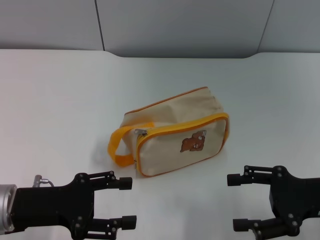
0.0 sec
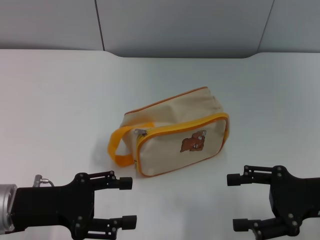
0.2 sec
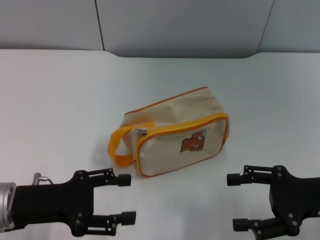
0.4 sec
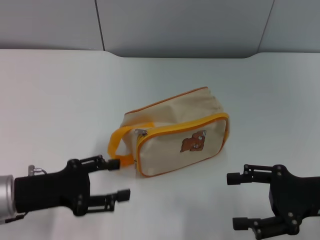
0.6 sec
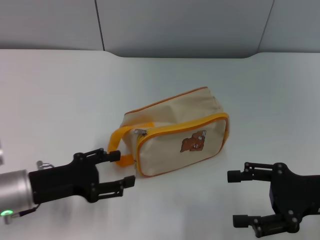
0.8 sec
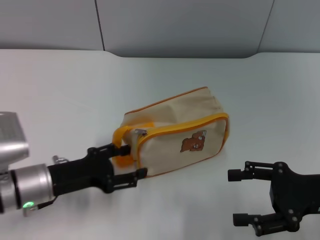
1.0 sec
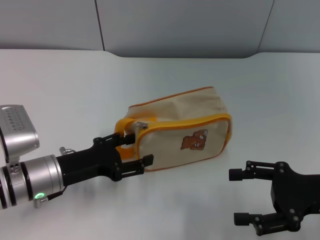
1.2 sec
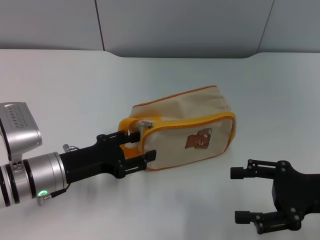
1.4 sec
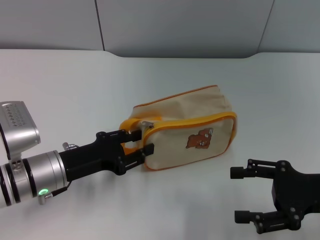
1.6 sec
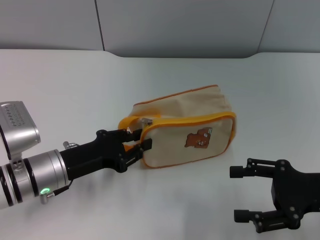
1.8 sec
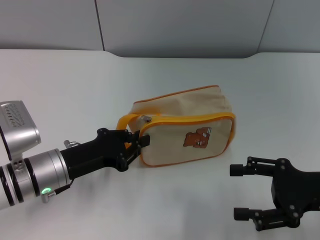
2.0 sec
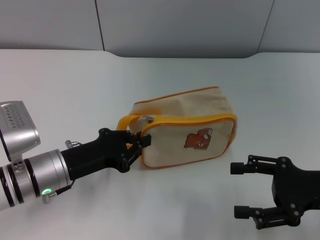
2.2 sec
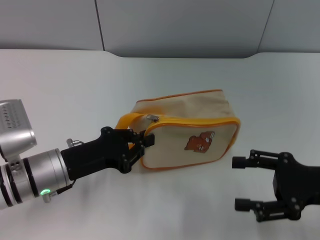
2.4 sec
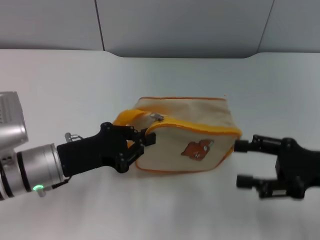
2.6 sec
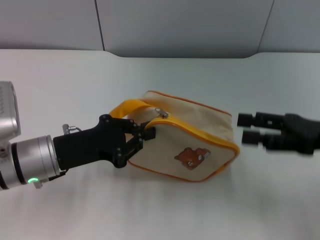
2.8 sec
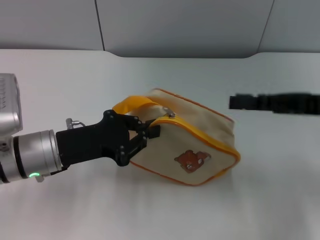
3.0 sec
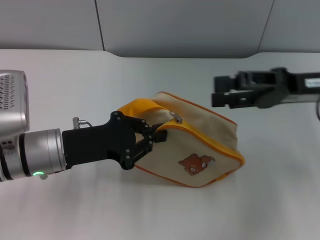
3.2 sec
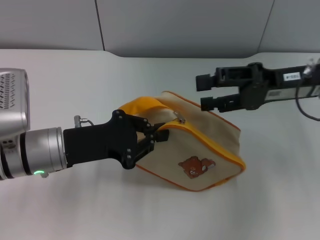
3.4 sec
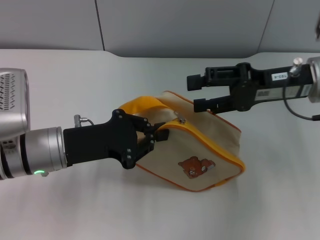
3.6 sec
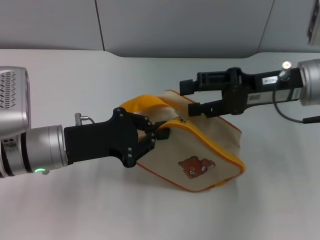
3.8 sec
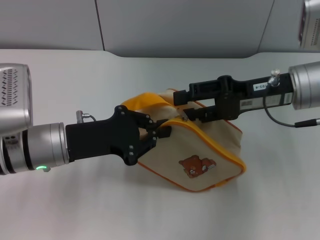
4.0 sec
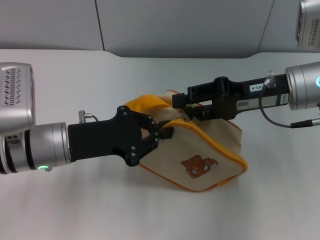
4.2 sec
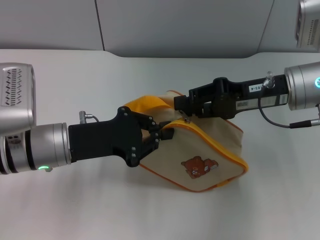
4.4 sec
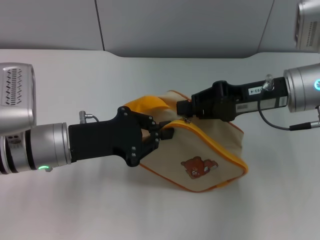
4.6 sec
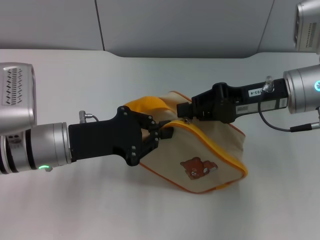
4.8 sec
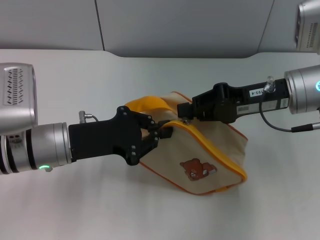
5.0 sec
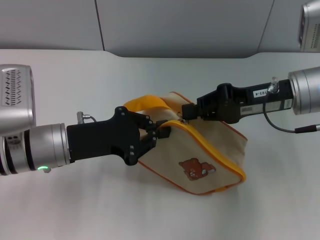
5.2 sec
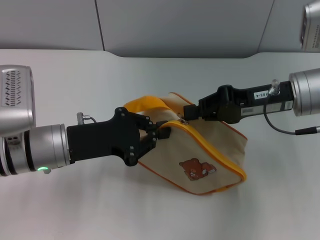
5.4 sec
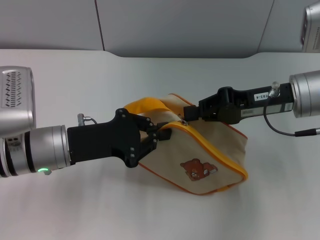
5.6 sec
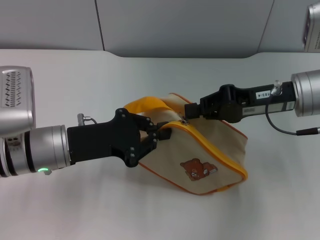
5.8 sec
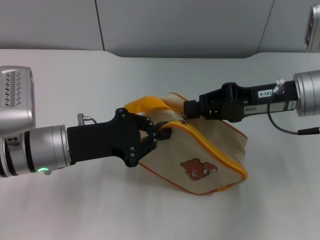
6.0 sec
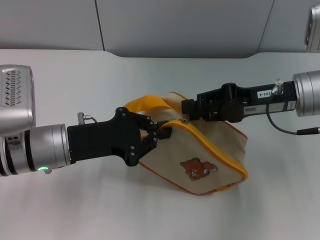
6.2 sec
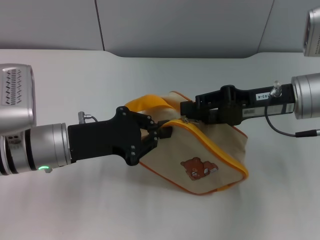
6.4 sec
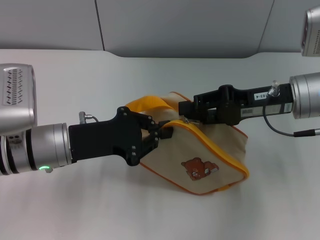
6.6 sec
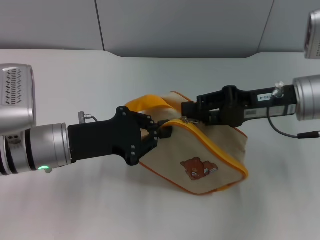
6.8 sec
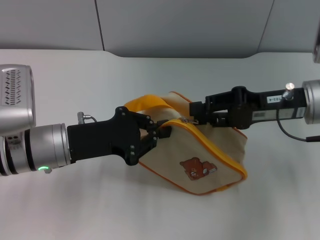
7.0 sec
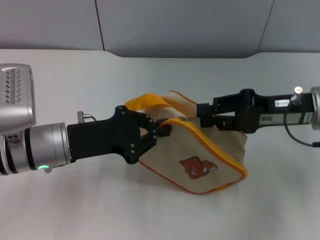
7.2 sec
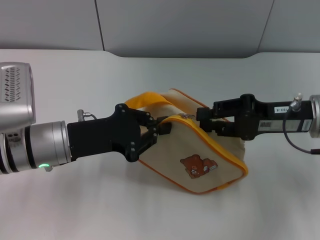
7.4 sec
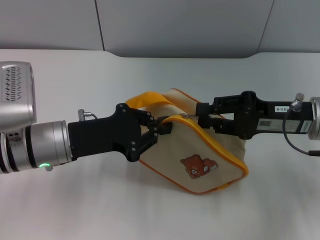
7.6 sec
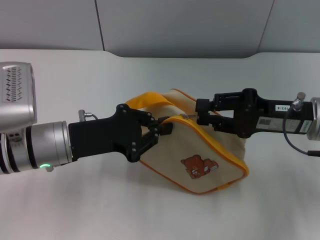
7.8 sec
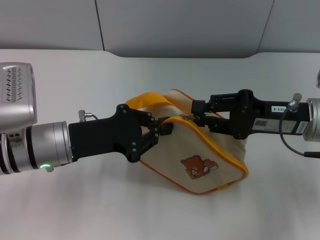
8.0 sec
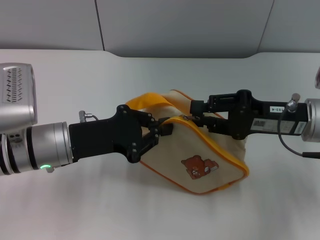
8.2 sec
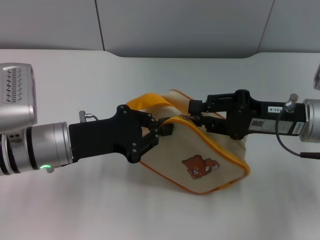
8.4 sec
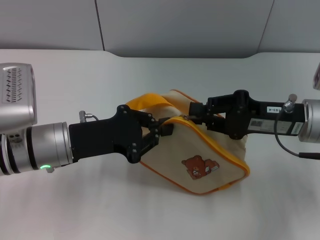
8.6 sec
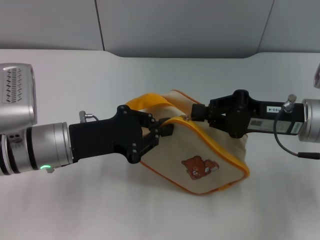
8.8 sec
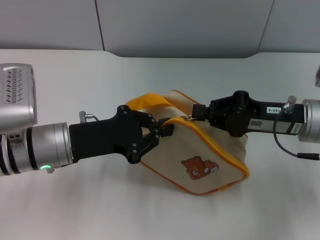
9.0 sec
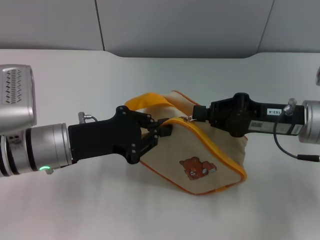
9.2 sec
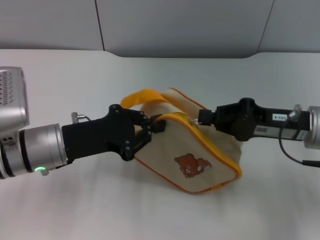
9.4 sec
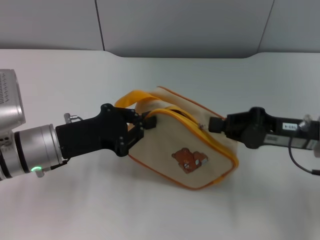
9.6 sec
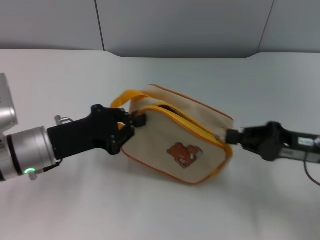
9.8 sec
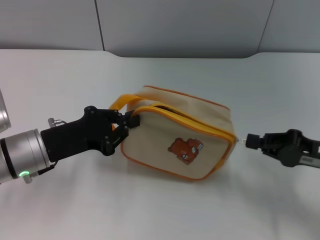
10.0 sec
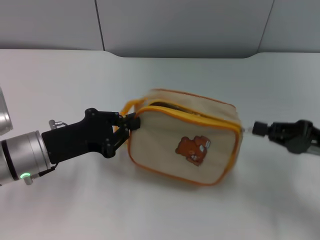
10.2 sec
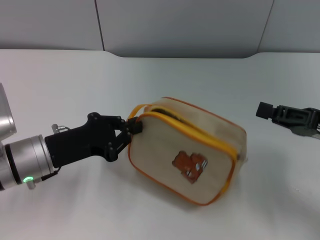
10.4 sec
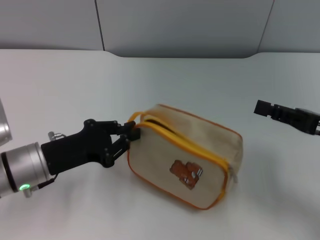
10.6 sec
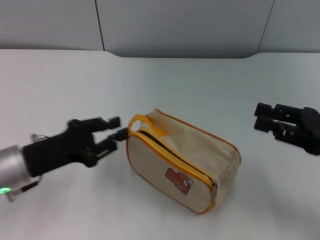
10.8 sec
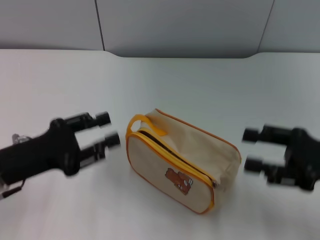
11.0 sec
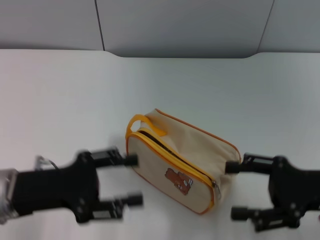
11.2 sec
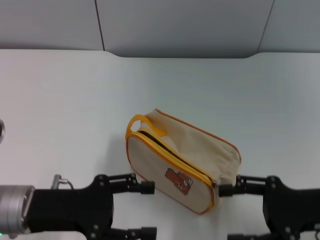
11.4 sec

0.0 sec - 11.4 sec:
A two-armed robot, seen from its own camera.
Step, 0.0 sec - 2.6 sec: Pick up the bag with left gripper.
Step, 2.8 sec - 10.2 sec: Unzip the zipper of bag with right gripper.
Step, 10.4 sec - 10.8 sec: Place the bag on the table with left gripper.
0.0 sec - 1.4 sec: The left gripper travels forward by approximately 5 cm.
1.4 sec - 2.8 sec: The left gripper closes, while the right gripper shifts by about 5 cm.
2.8 sec - 4.2 sec: The right gripper travels to the left and forward by about 10 cm.
4.2 sec - 5.6 sec: The right gripper closes.
5.6 sec - 7.2 sec: The right gripper opens its fingers.
7.2 sec - 8.6 sec: There are only small adjustments of the grippers.
8.6 sec - 10.0 sec: The right gripper goes some 10 cm to the right and backward, and closes its fingers.
10.0 sec - 11.4 sec: The right gripper ends up approximately 5 cm from where it was, and opens, while the left gripper moves backward, roughly 5 cm, and opens.
